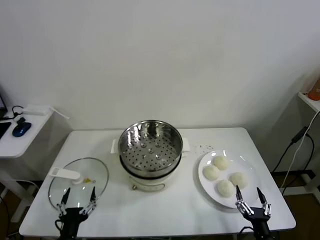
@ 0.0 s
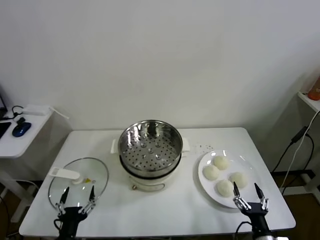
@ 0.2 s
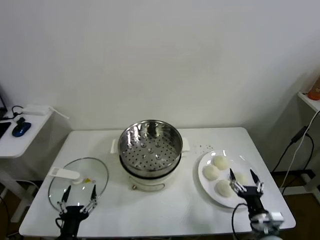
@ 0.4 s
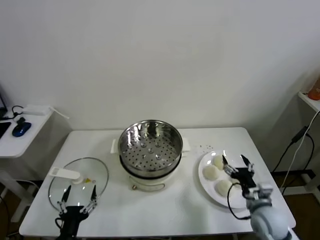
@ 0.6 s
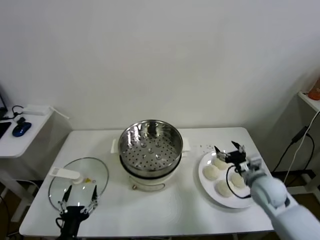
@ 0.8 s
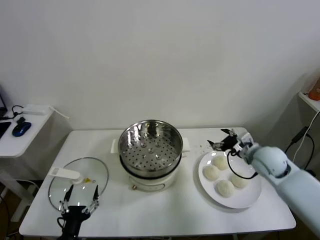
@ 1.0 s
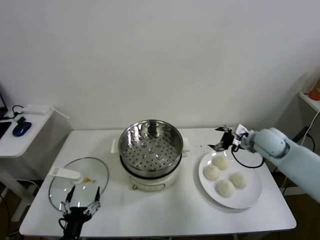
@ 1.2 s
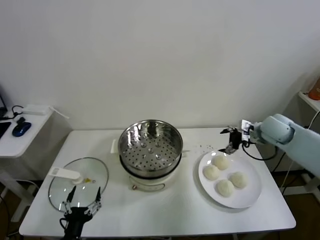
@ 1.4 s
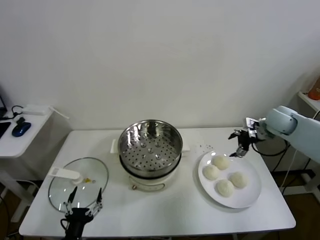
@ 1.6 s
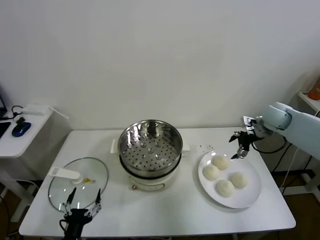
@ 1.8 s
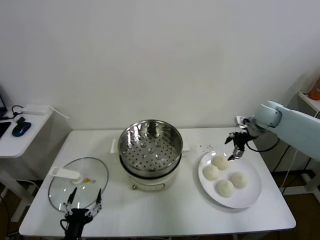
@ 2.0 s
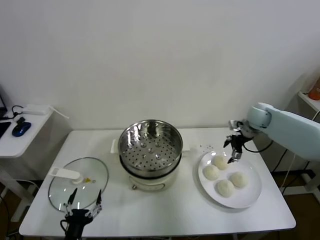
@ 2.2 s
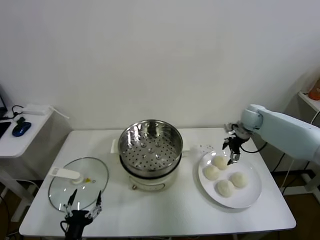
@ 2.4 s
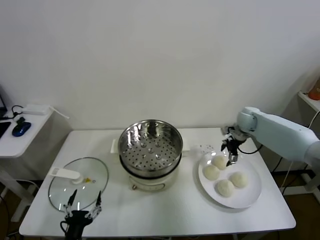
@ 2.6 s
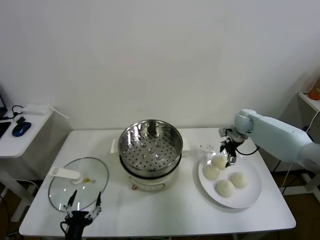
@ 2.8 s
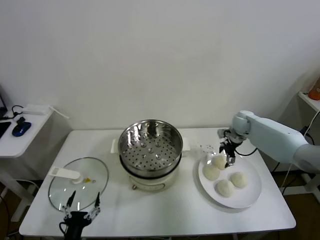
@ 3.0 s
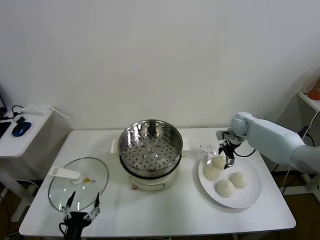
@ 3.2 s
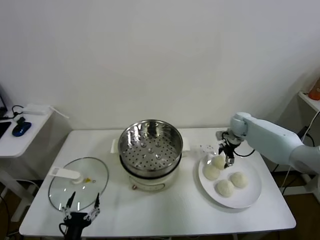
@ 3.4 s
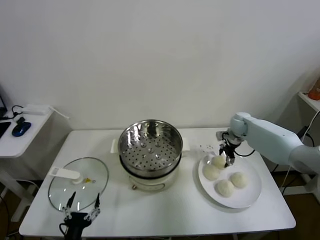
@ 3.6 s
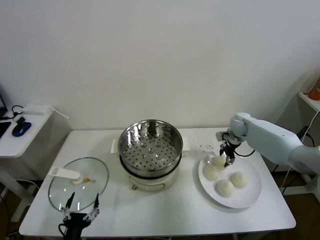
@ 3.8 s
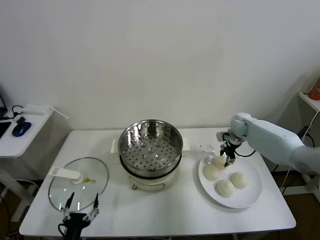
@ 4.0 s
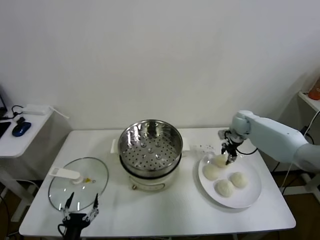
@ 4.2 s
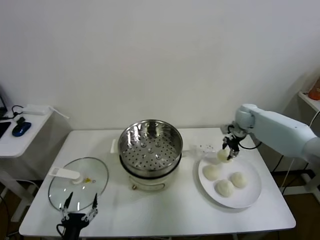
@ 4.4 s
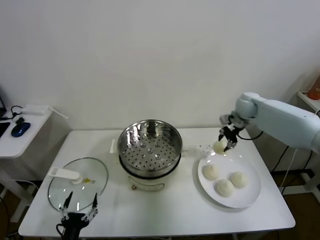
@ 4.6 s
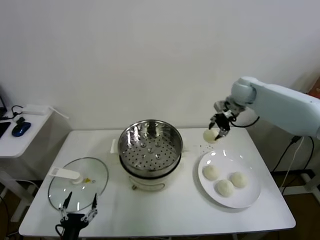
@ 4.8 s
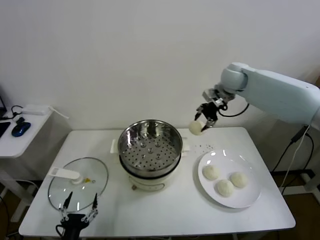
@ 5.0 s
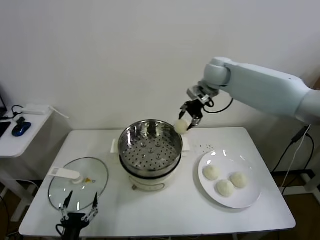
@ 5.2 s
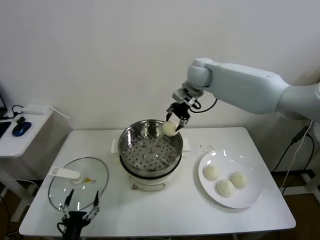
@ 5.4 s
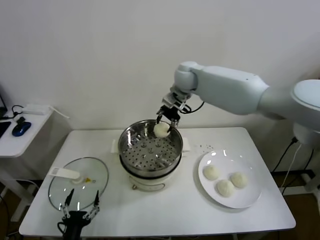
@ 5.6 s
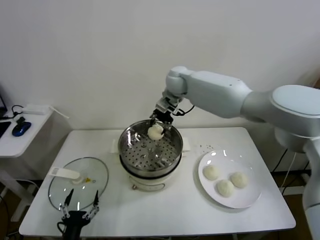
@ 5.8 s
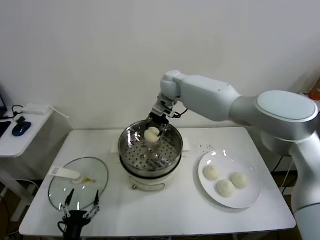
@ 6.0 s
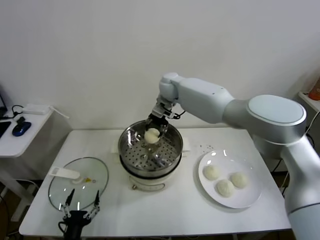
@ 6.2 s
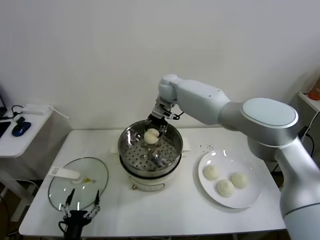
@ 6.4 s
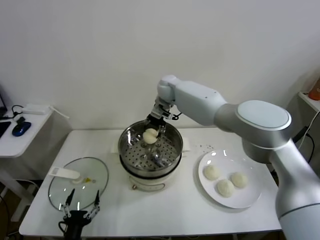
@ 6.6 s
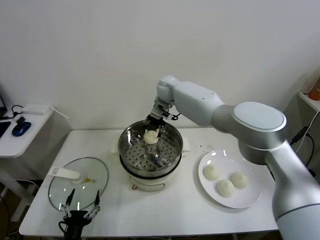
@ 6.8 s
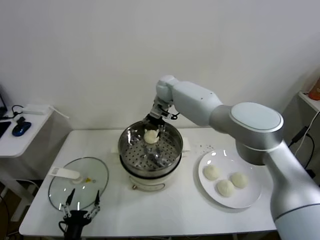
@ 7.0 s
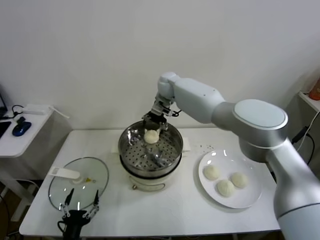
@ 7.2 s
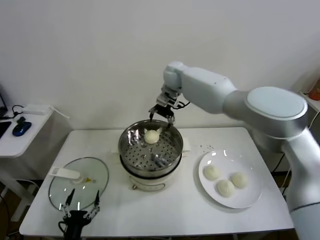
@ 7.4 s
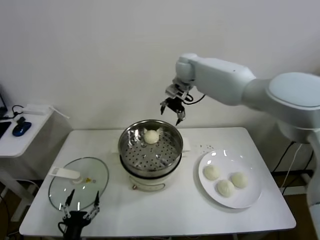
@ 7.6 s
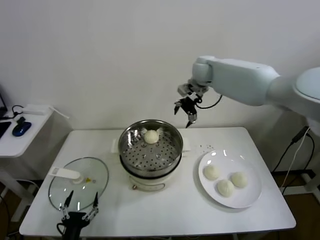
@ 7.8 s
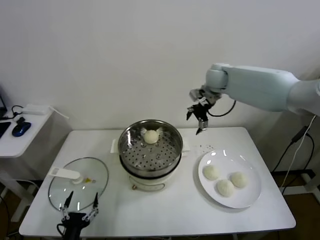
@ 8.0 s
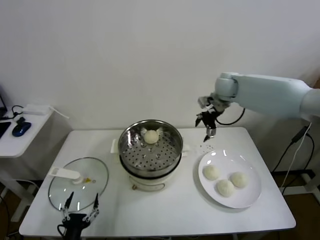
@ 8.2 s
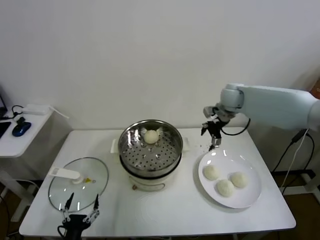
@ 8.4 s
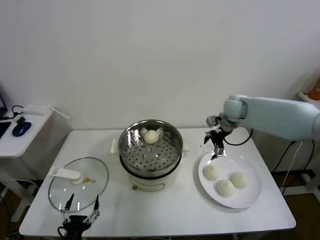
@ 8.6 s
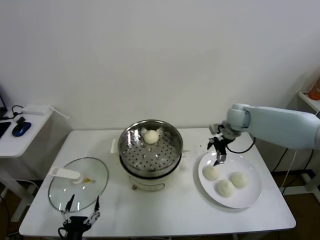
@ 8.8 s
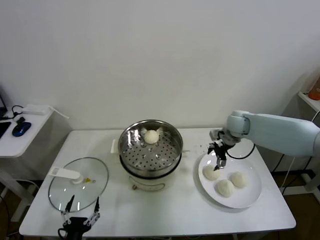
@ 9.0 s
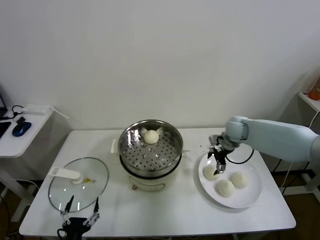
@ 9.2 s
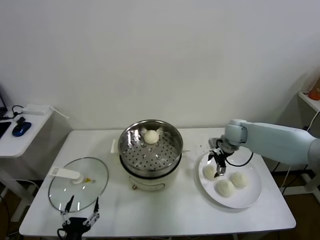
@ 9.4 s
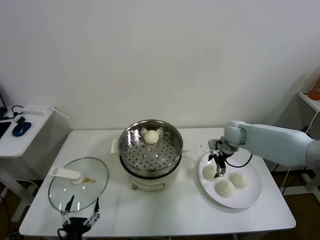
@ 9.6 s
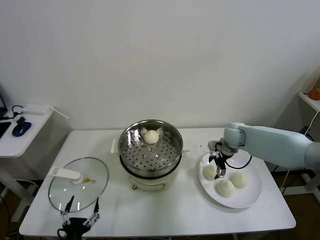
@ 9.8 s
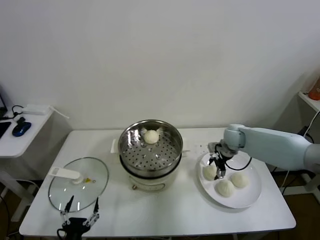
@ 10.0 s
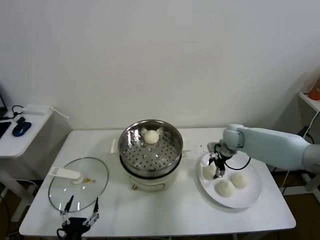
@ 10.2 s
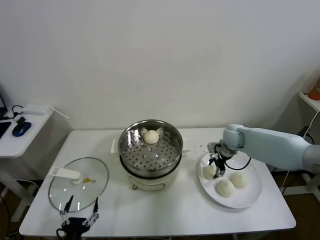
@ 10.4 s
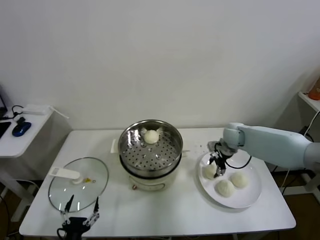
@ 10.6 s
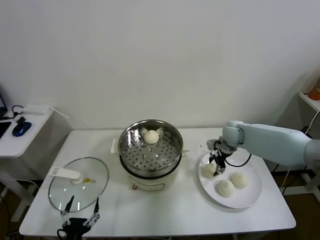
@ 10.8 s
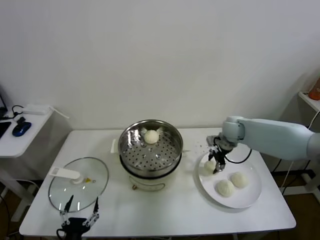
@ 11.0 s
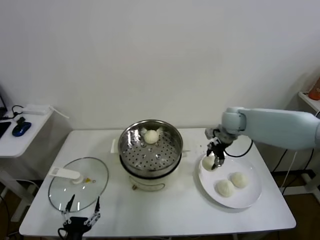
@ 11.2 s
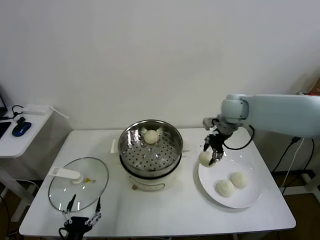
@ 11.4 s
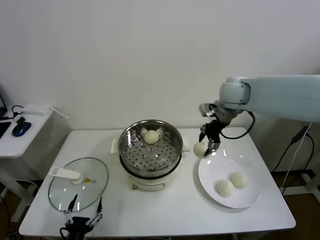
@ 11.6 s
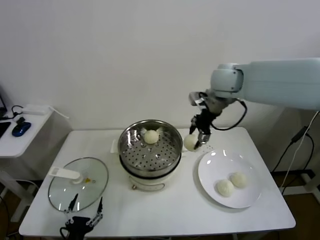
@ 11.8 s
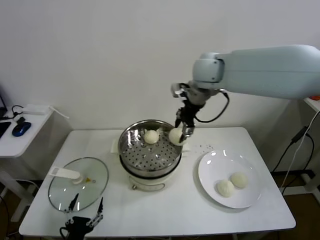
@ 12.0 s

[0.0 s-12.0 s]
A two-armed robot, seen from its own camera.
Task of the whole recording: take steamed baozi put them in steamer.
Step, 0.0 to 3.8 s: Grasp the baozi in the plate with right gripper.
Step, 4.0 to 7.2 s: Place the baozi on the steamer with right gripper.
Step, 7.4 to 10.4 s: Grasp the baozi in the plate with right gripper.
1.6 to 3.0 s: The right gripper travels downward, forward and to the left by roughly 15 cm.
3.0 to 4.4 s: The right gripper goes roughly 5 cm upward, and closes.
4.4 to 6.0 s: The right gripper heads to the left, covering roughly 30 cm.
6.0 to 7.6 s: The right gripper goes approximately 10 cm to the right and upward, and opens its fingers.
7.6 to 9.0 s: The right gripper travels downward, to the right and backward by approximately 30 cm.
9.0 to 10.4 s: The right gripper shifts about 5 cm downward, and closes up.
10.4 to 12.0 s: The right gripper goes approximately 35 cm upward and to the left.

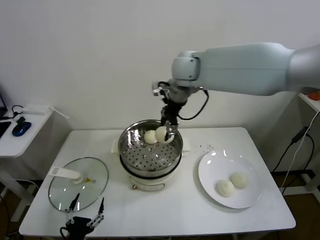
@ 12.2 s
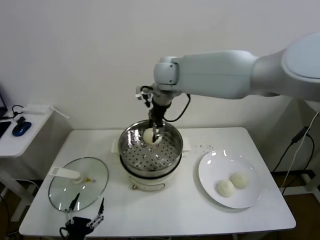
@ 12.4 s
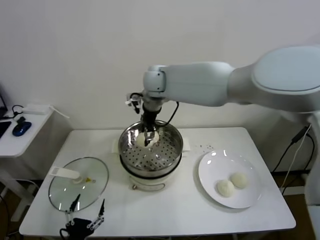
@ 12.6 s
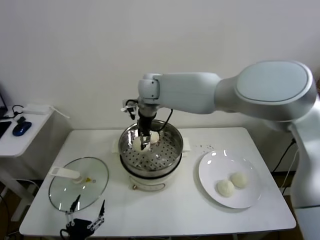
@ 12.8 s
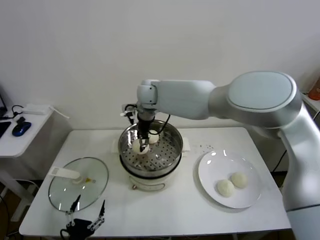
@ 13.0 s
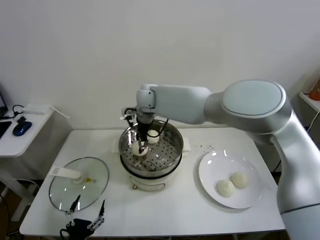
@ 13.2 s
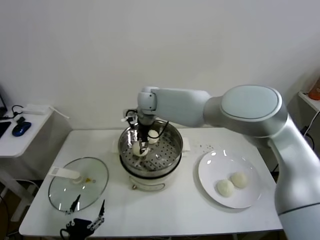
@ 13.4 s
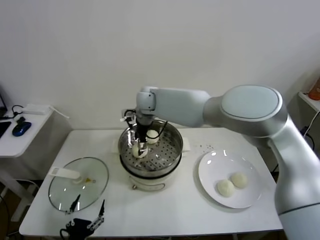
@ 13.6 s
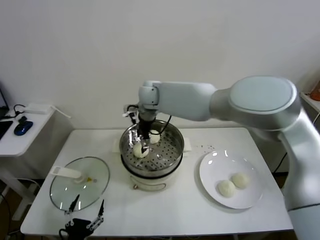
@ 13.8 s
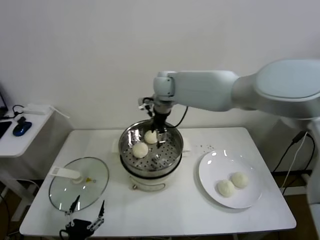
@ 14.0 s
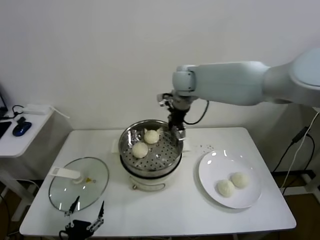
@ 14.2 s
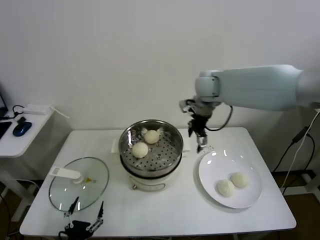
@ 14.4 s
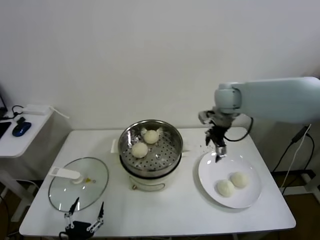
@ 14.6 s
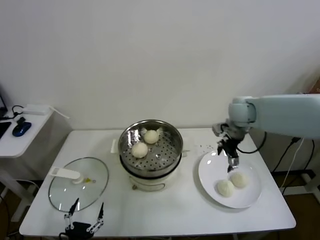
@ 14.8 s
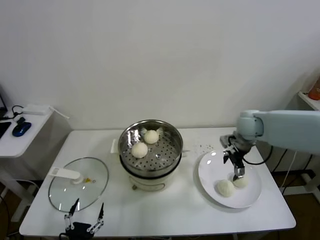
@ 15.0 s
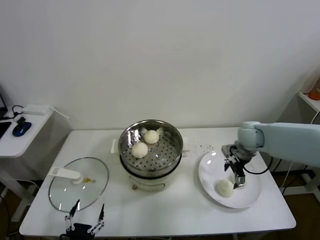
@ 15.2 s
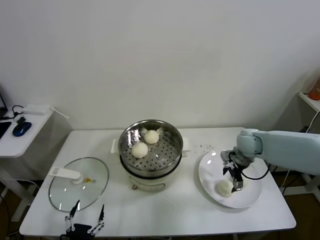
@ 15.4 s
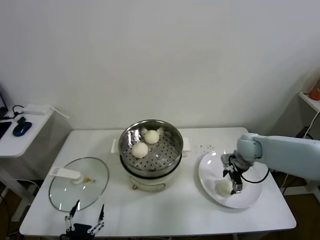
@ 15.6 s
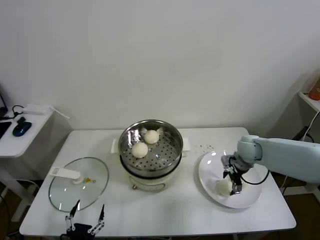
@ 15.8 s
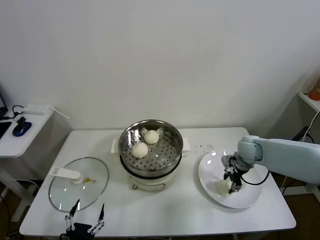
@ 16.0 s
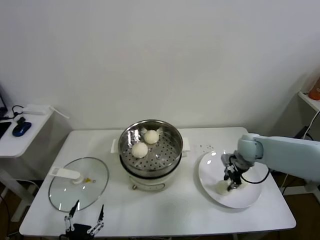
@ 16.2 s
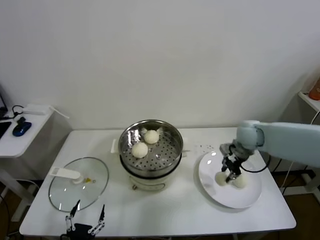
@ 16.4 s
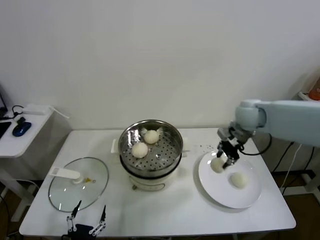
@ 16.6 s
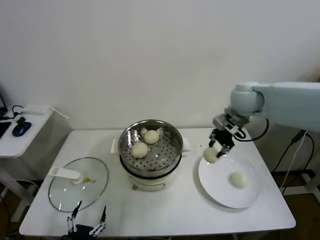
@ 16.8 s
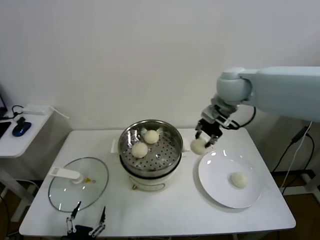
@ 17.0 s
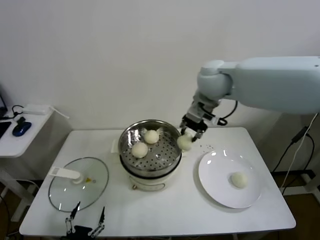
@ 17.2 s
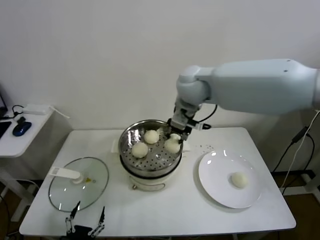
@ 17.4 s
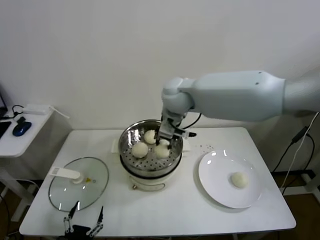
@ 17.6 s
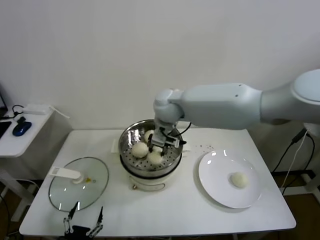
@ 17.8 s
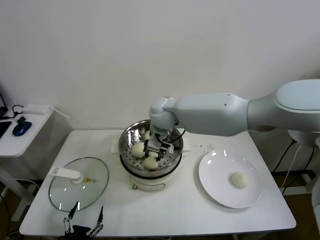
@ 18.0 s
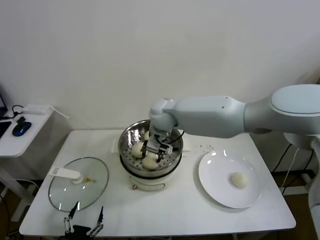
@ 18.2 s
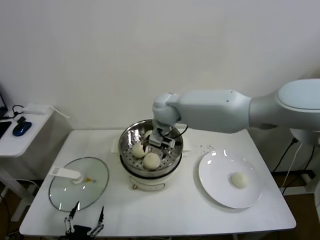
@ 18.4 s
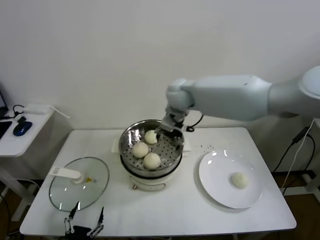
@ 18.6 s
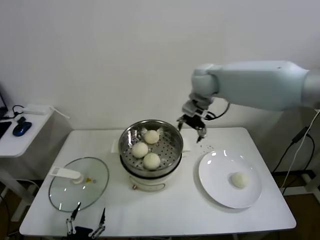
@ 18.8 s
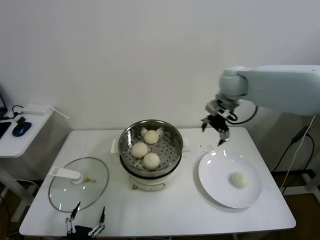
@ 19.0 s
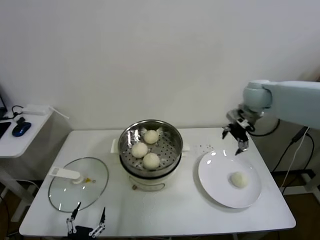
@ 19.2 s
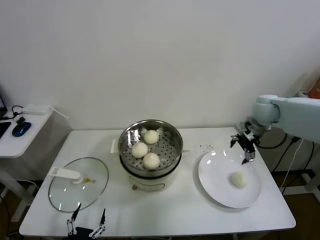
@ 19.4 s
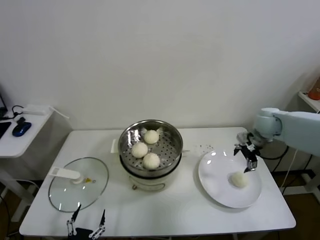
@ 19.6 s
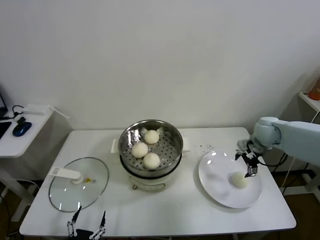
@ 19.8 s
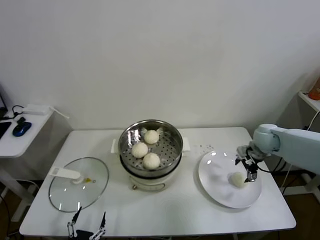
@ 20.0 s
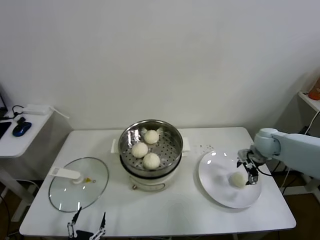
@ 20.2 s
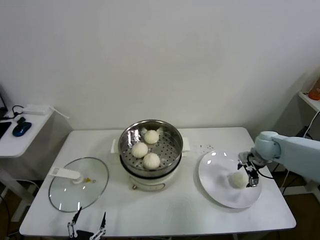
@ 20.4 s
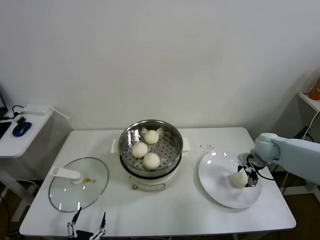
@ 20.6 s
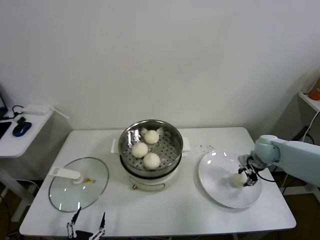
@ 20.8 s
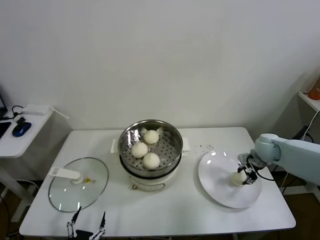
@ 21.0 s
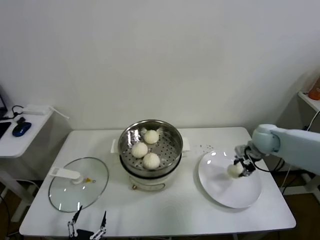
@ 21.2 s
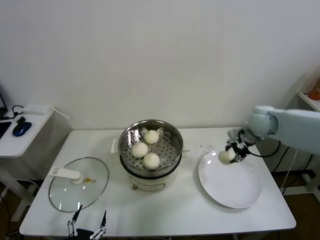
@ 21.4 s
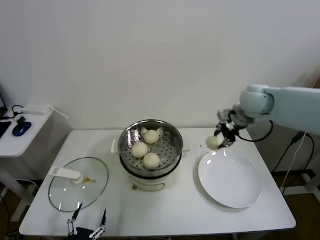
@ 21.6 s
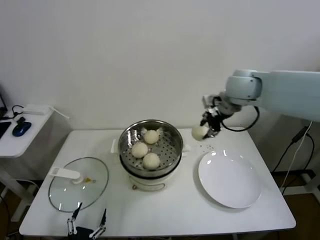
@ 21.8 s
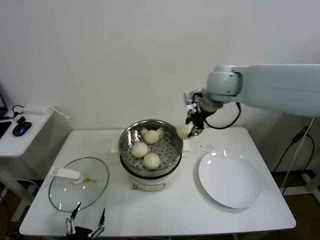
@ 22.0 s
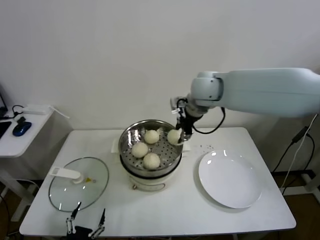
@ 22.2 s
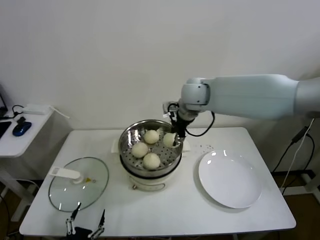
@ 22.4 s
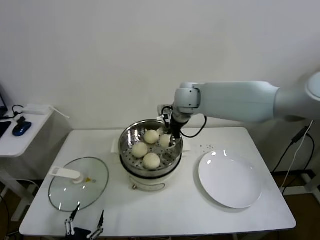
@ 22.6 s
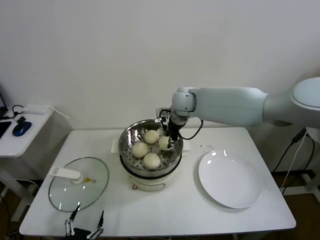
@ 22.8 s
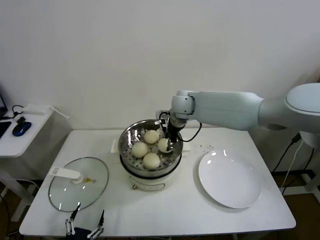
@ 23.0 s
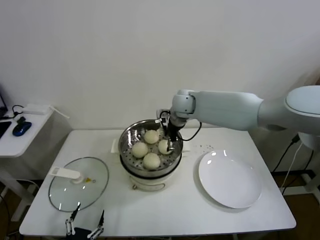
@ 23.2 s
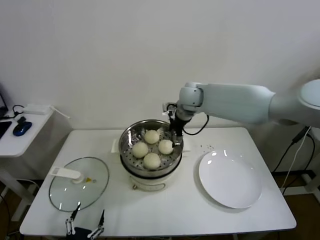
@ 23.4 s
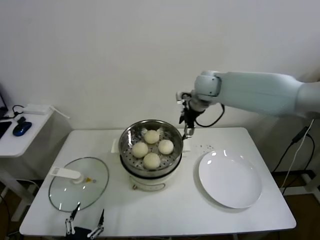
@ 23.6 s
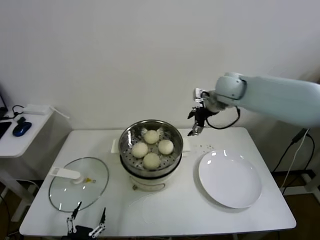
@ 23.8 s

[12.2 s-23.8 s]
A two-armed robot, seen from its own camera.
Task of the whole recording: take steamed baozi put them in steamer.
Step, 13.8 to 16.0 s: Grasp the baozi in the plate with right gripper.
Step, 16.2 to 18.2 s: Place the baozi on the steamer with right gripper.
Step, 18.4 to 20.8 s: Grasp the baozi in the plate with right gripper.
Step, 21.2 to 23.2 s: Place the baozi on the steamer with right gripper.
12.2 to 13.6 s: The right gripper is displaced downward and to the left by about 15 cm, and opens.
13.6 to 15.0 s: The right gripper is displaced to the right by about 35 cm.
15.0 to 16.6 s: The right gripper is displaced upward by about 5 cm, and closes up.
16.6 to 18.0 s: The right gripper goes roughly 25 cm to the left.
18.0 to 19.4 s: The right gripper goes some 35 cm to the right, and opens its fingers.
19.4 to 21.0 s: The right gripper is displaced downward by roughly 15 cm, and closes its fingers.
21.0 to 22.4 s: The right gripper travels to the left and upward by roughly 35 cm.
22.4 to 23.8 s: The right gripper travels to the right by some 10 cm, and opens up.
